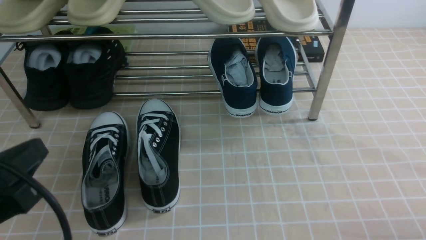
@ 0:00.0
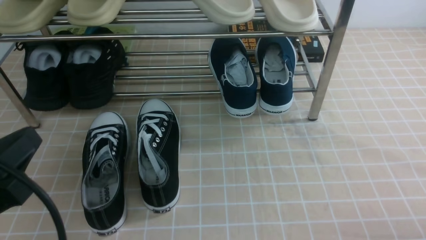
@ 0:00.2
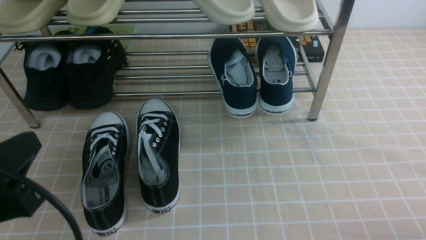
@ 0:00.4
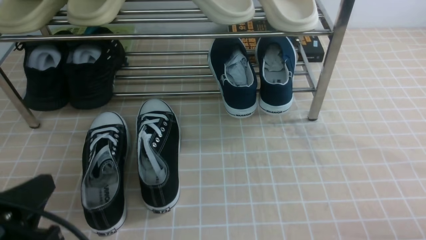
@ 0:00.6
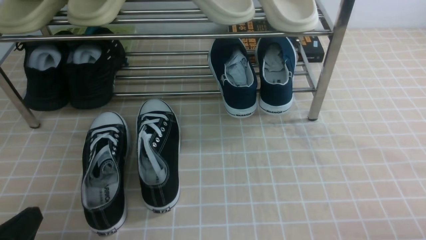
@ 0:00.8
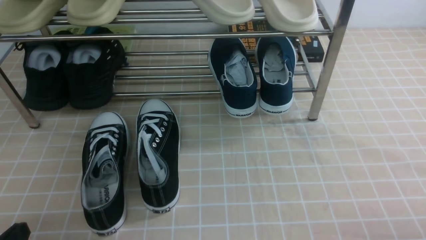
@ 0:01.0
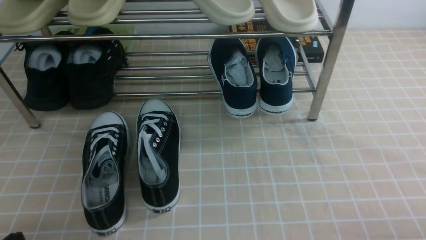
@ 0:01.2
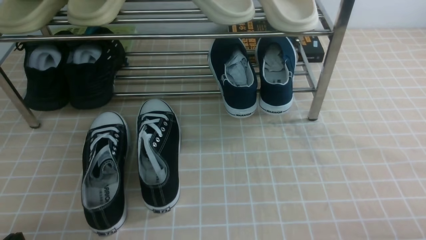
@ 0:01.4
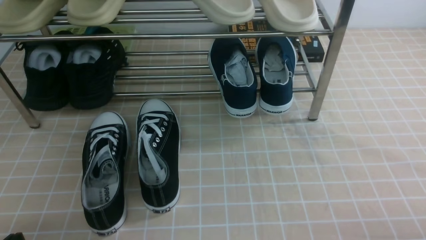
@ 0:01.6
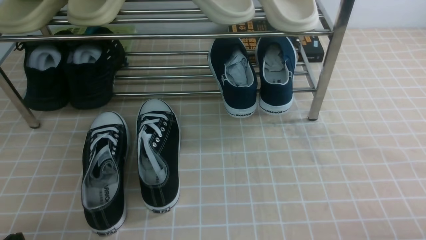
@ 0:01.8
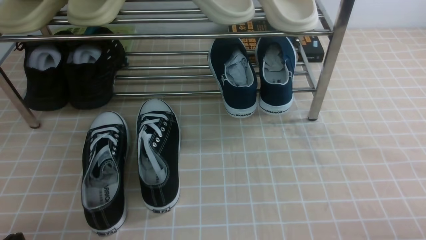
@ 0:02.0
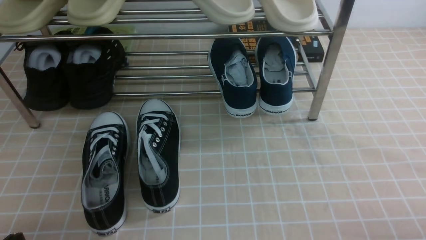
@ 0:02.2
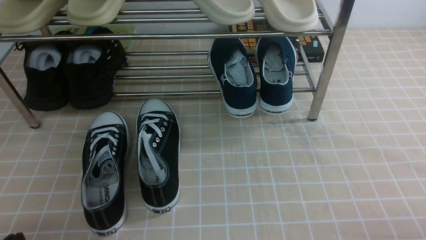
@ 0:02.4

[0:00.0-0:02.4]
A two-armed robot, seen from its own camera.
0:00.0 to 0:01.2: The left gripper shifts some 15 cm downward.
0:01.2 to 0:02.4: Both grippers stay about where they are.
